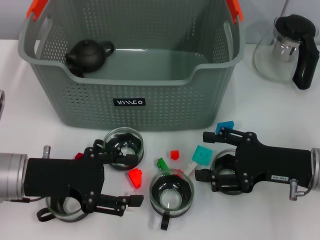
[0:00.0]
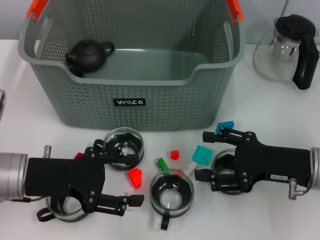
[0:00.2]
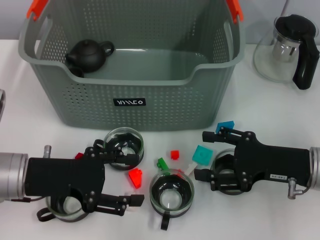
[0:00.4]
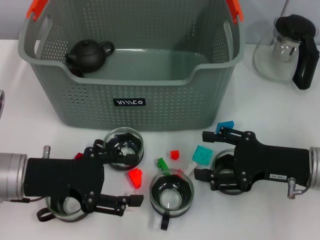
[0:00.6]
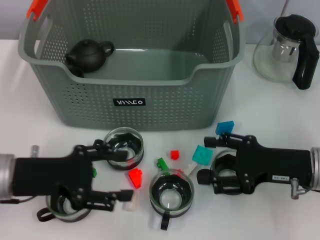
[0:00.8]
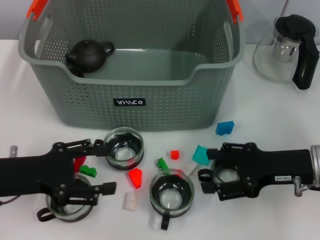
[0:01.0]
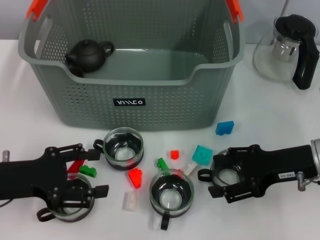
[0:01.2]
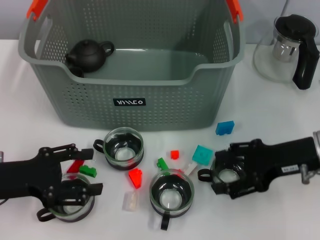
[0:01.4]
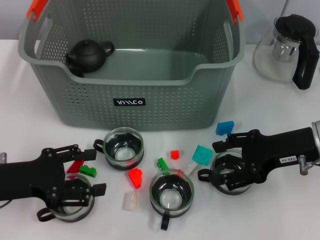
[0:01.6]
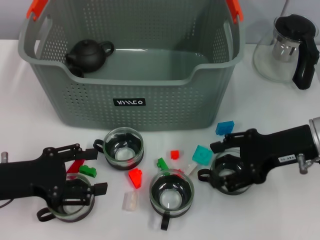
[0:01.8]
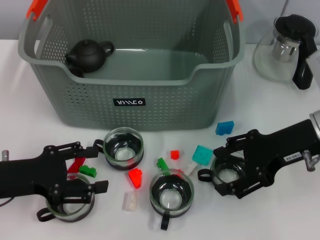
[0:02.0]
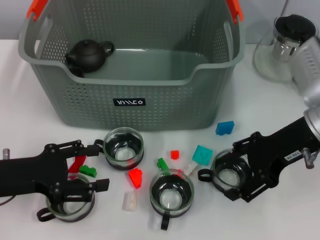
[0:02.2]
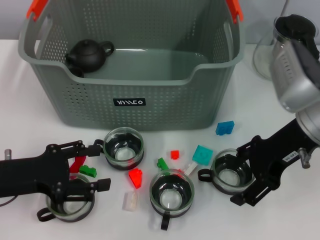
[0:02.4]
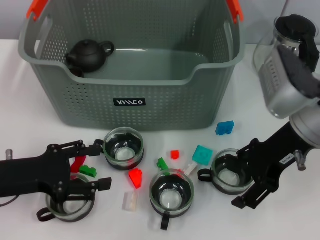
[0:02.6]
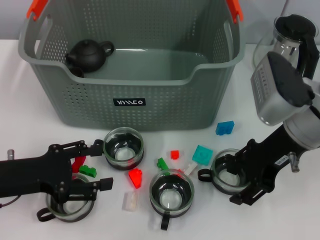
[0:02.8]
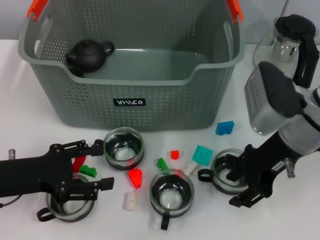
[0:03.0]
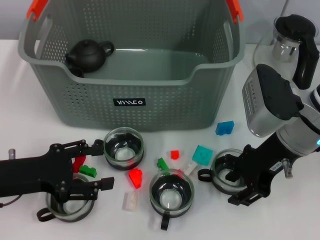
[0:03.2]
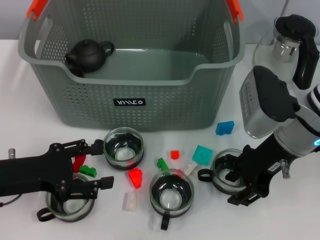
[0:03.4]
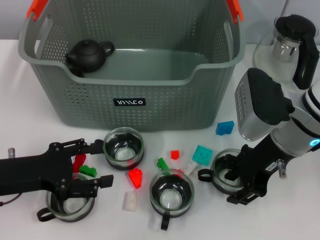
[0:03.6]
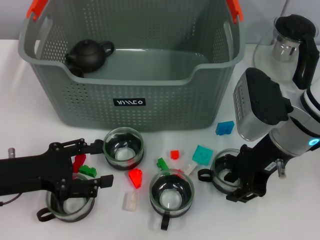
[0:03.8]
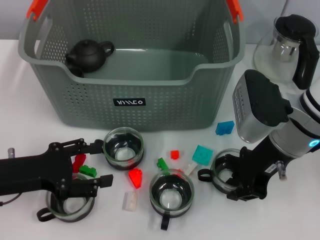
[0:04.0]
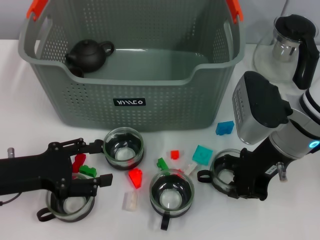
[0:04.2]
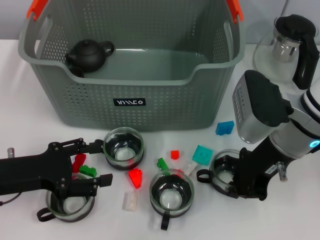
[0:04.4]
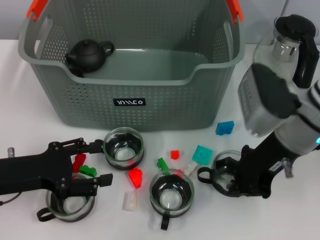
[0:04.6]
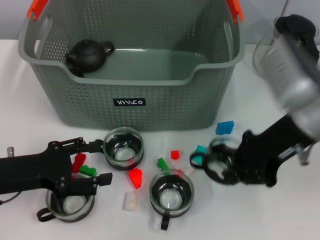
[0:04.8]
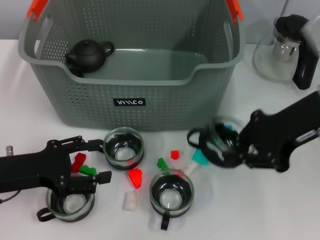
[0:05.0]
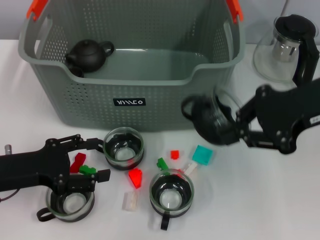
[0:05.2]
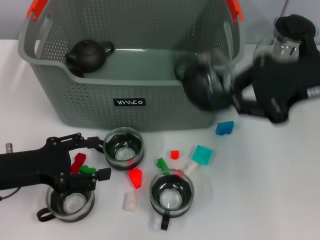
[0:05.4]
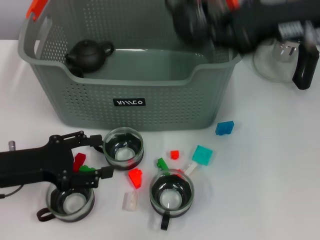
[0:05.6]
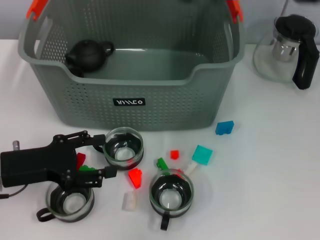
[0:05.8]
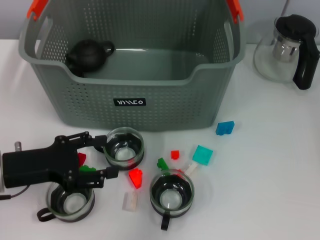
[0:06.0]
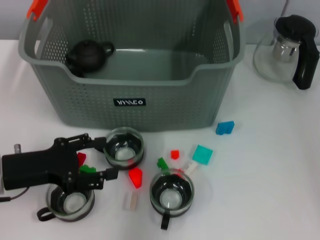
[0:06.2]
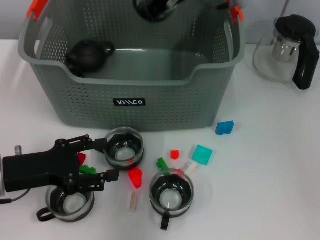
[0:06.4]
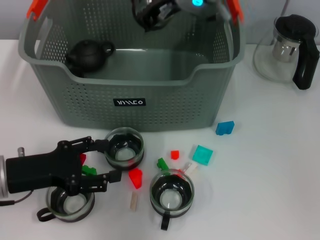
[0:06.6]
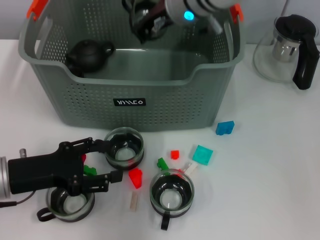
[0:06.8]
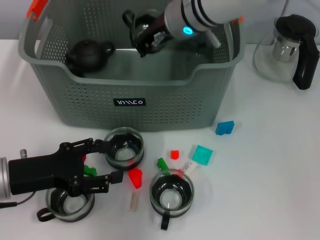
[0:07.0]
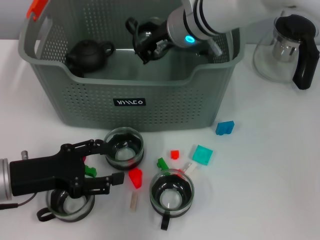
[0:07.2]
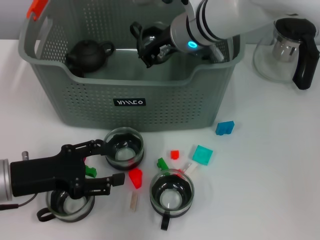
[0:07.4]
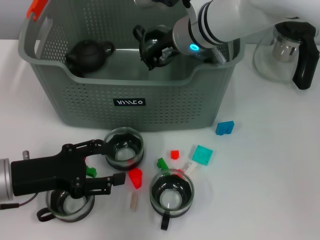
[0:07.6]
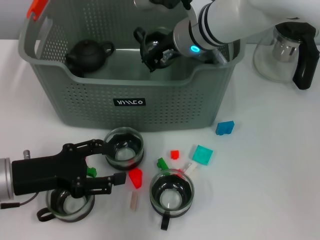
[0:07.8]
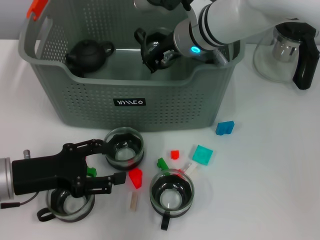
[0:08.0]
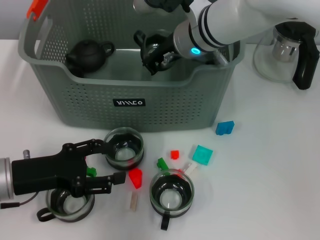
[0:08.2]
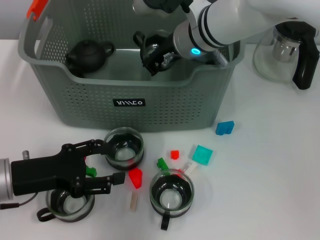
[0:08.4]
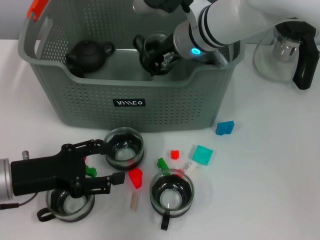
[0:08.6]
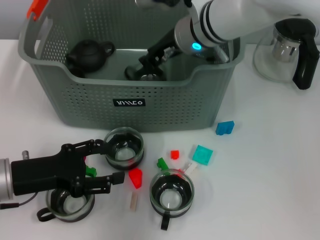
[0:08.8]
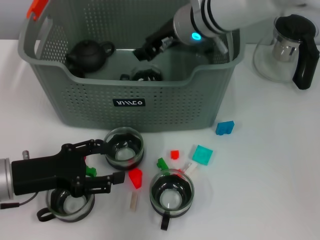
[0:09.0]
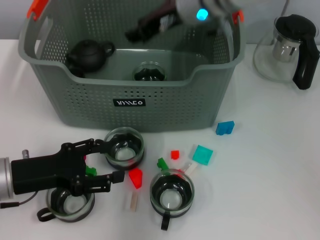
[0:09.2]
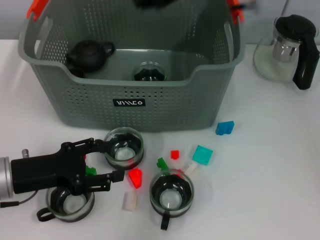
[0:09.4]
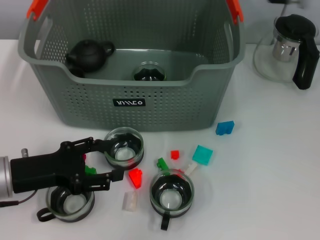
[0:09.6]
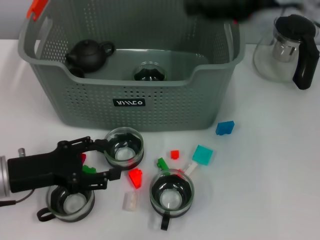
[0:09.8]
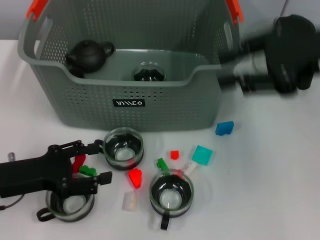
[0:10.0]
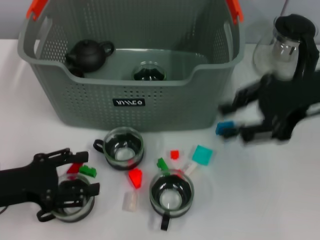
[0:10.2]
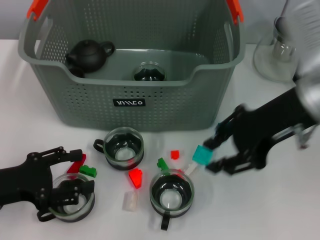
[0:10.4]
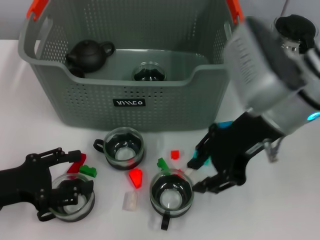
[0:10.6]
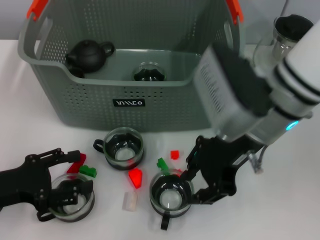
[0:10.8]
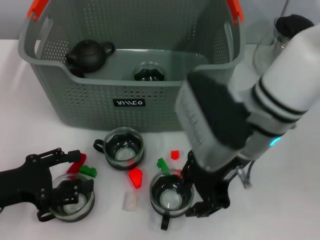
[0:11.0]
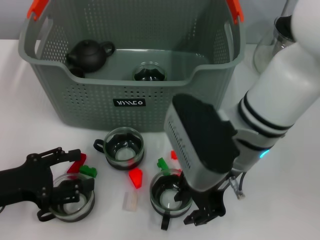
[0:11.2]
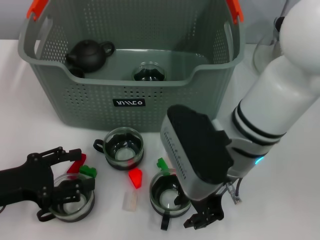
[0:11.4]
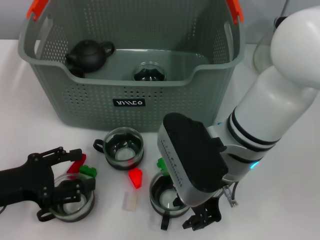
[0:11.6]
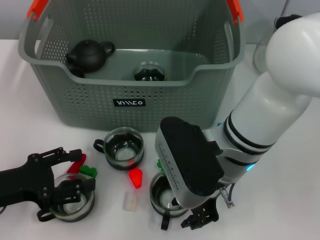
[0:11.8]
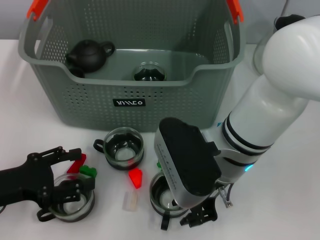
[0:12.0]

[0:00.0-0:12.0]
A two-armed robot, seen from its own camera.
Task of the whole recording: pick up the teacup on the table and place it into the storage bin, pick up the block on the table and place it into the storage bin.
Step, 0.0 to 4.2 s: Grasp the cup with right gripper.
Step, 4.6 to 8.8 s: Place the cup in the storage box with right gripper.
0.0 to 1.6 s: The left gripper changes place by roughly 5 cm. Meanwhile the right gripper changes place by about 5 cm.
1.6 to 3.0 s: The right gripper is displaced to the left by about 5 cm.
3.0 to 4.4 s: The right gripper closes up.
4.4 to 6.0 s: The right gripper heads upward and forward, covering some 20 cm.
6.0 to 7.6 s: The right gripper is displaced downward and to the left by roughly 15 cm.
7.6 to 9.0 s: The grippers move only a little.
9.0 to 10.4 s: The right gripper is displaced to the right and backward by some 20 cm.
10.4 to 12.0 s: The right gripper goes approximately 15 cm to the left and downward.

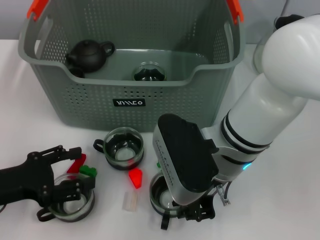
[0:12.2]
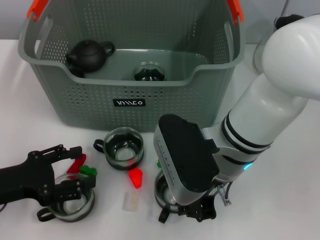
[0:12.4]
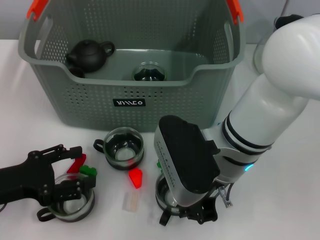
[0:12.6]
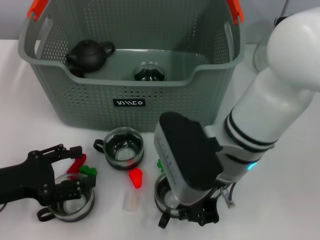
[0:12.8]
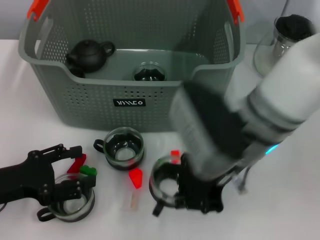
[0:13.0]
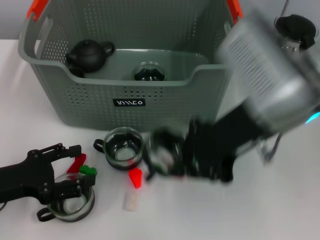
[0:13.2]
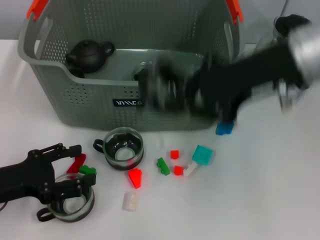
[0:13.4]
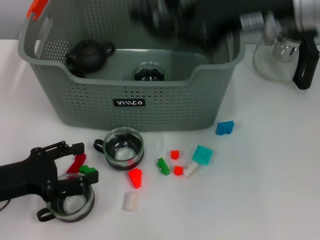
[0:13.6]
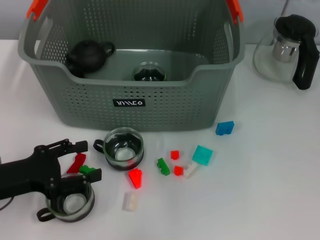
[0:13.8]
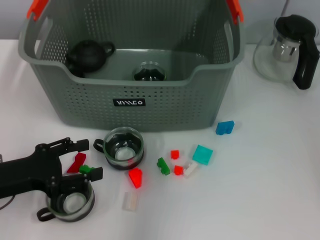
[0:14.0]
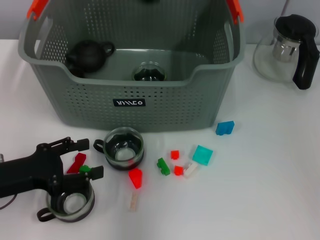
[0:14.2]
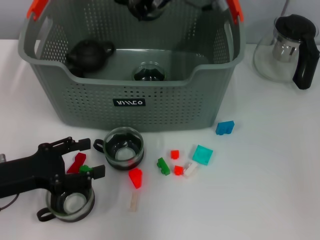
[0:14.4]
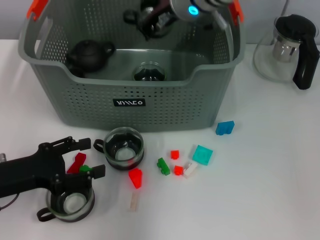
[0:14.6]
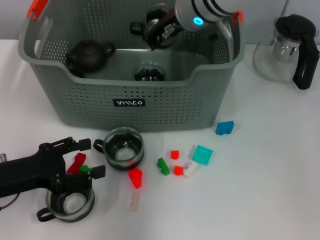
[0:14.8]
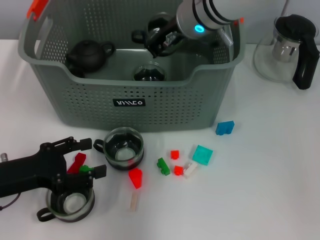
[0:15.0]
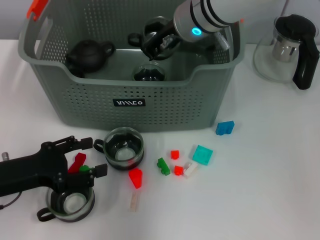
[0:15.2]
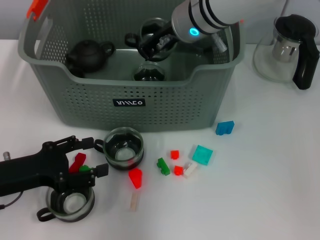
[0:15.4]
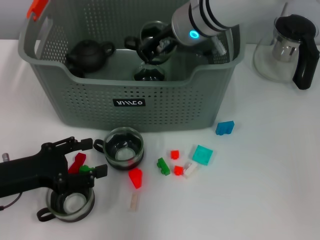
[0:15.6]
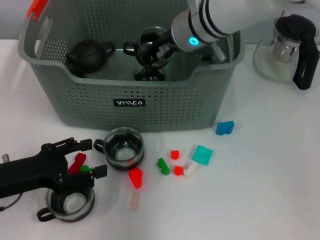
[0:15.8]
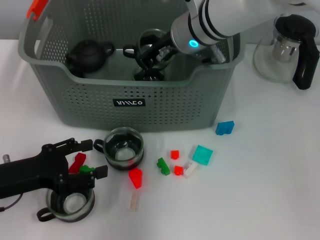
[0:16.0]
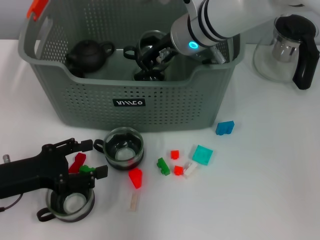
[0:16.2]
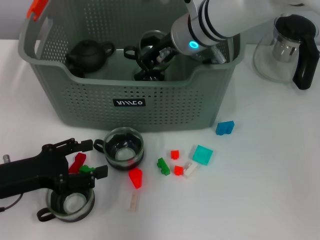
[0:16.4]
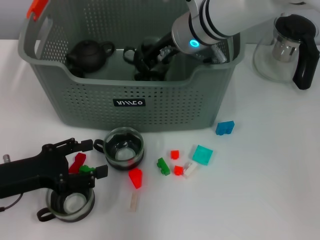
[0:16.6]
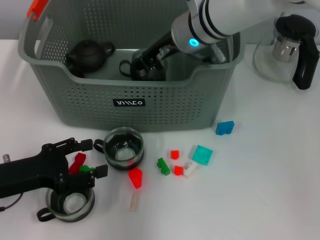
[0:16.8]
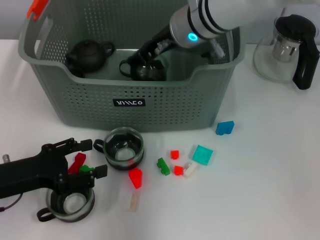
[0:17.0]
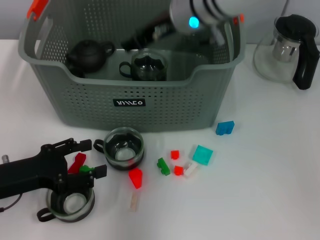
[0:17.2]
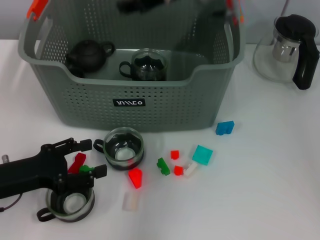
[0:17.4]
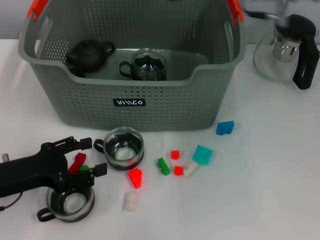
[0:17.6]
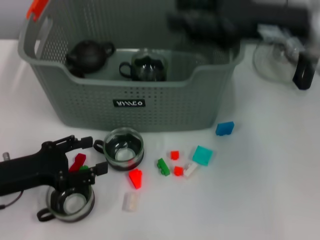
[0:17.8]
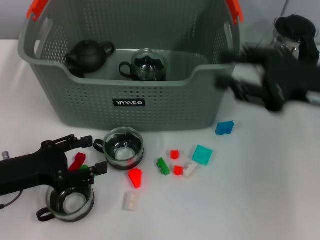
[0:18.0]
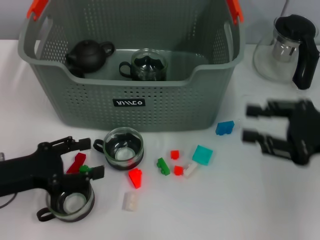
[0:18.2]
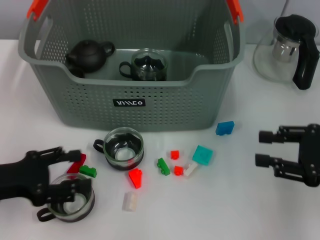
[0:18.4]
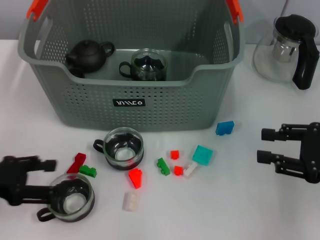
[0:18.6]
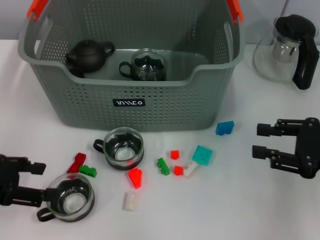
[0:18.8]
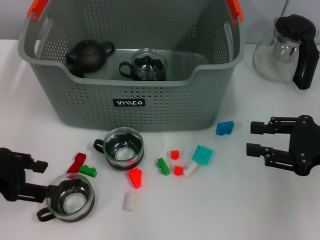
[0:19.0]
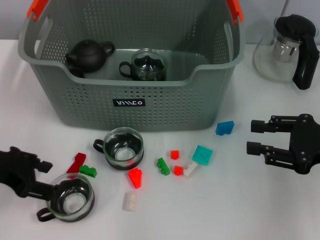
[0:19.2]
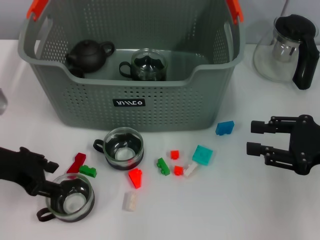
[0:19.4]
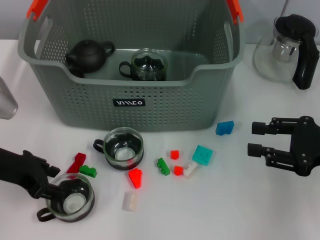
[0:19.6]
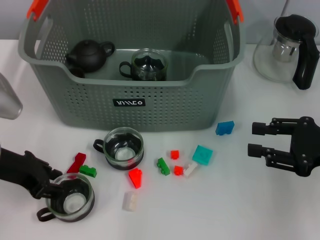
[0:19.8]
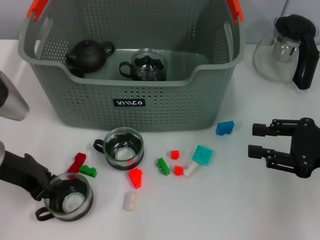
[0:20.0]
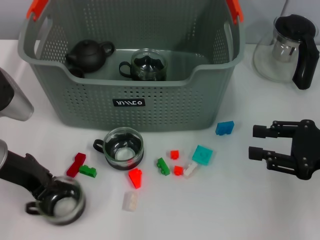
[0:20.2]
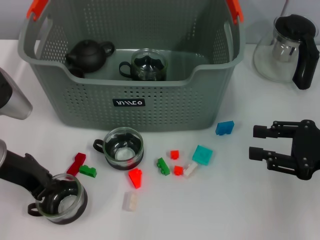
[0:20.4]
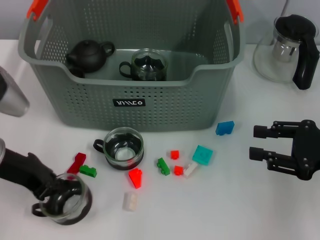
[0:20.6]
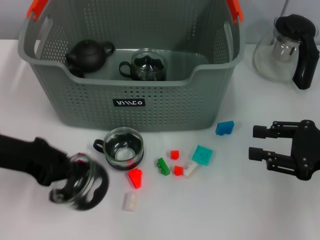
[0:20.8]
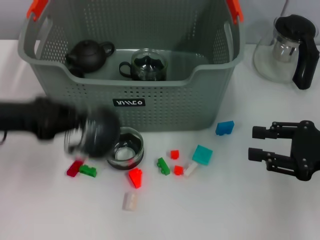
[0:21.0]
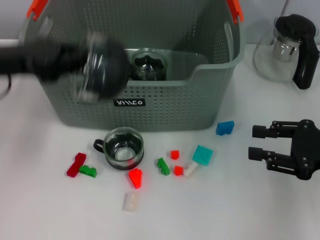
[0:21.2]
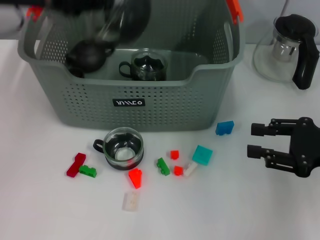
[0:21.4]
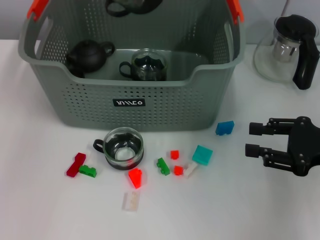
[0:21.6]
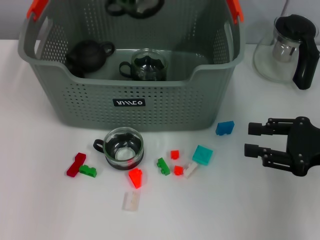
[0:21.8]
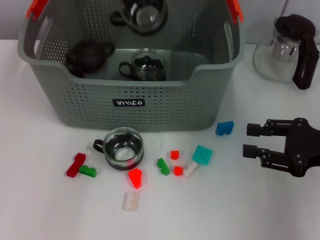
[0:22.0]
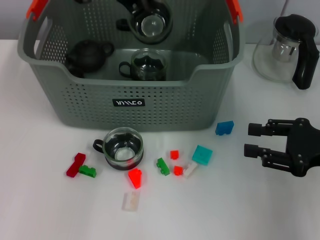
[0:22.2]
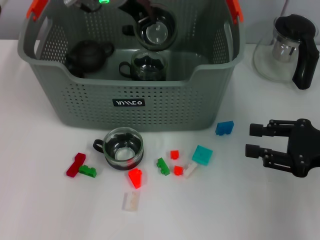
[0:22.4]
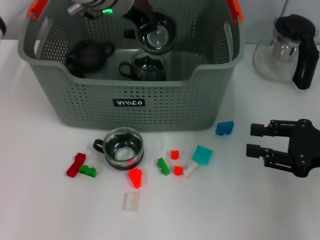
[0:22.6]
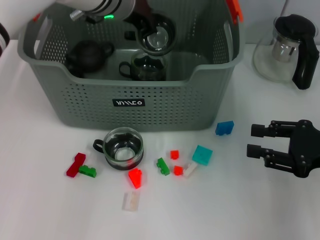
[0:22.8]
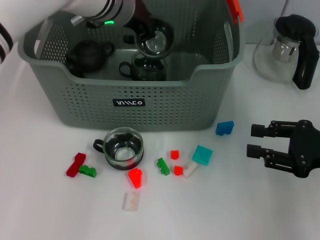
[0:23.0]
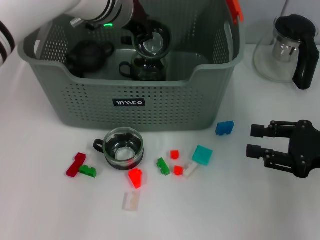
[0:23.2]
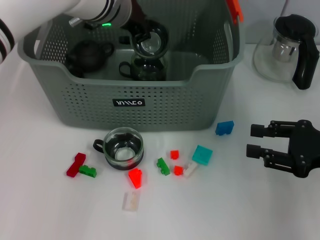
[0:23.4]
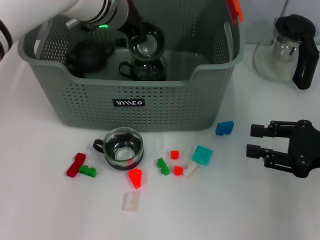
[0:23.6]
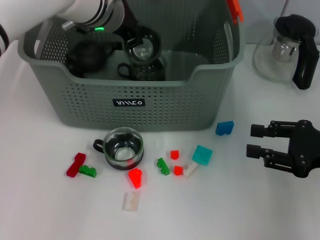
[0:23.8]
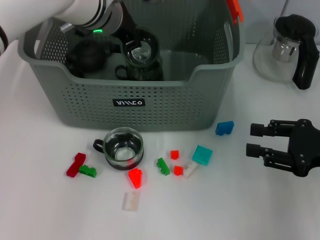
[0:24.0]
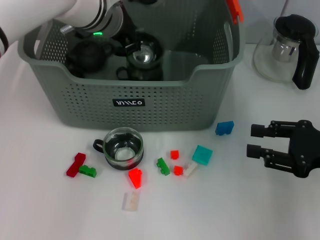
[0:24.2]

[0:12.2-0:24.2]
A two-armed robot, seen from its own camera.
Task of the whole recording: pick up the teacup on the table and place it into the storage bin, pick up the block on the table and place it into the storage bin.
Step, 12.6 to 16.8 s: Place the cup in the storage box with right gripper.
Step, 17.2 to 20.2 s: Grasp the cup with left gripper.
12.2 to 13.8 s: The right gripper moves upward and forward, some 20 cm, and closes up.
13.8 to 15.2 s: The right gripper goes approximately 15 cm downward, to the left and forward.
15.2 to 16.6 s: The grippers move only a little.
16.6 to 18.2 s: The right gripper travels to the right and backward by about 30 cm, and opens.
18.2 to 19.8 s: The left gripper is displaced forward and upward by about 5 cm.
19.8 to 21.2 s: The left gripper shifts approximately 10 cm upward, and closes its fingers.
21.2 to 22.6 s: The left gripper shifts roughly 25 cm to the right and forward.
22.6 to 24.2 s: There are only small adjustments of the grippers.
